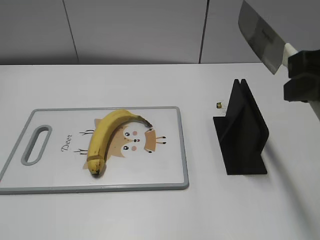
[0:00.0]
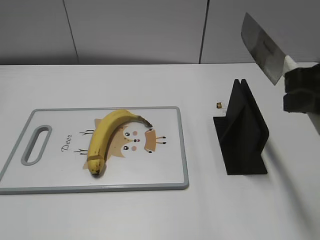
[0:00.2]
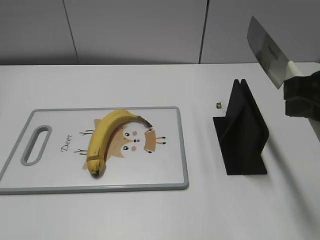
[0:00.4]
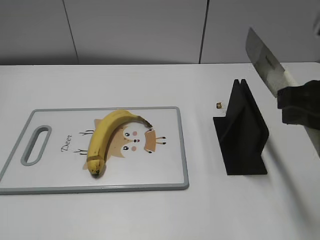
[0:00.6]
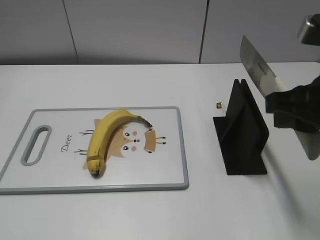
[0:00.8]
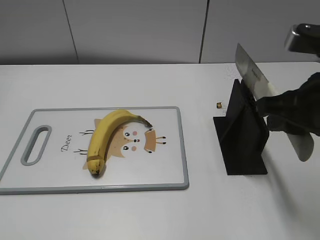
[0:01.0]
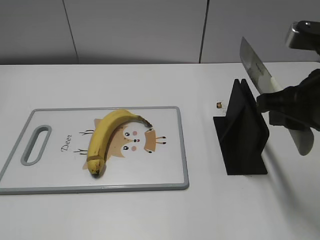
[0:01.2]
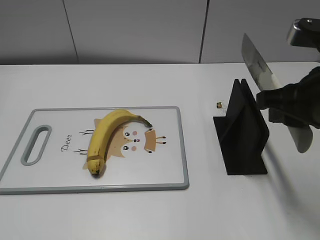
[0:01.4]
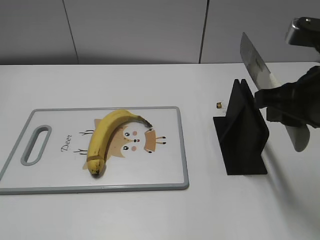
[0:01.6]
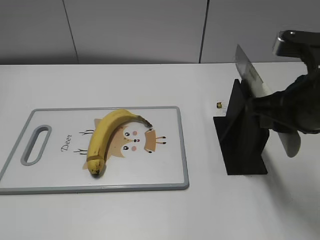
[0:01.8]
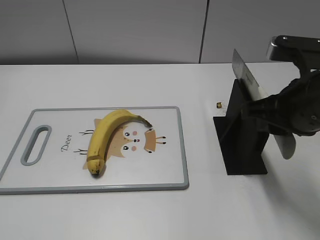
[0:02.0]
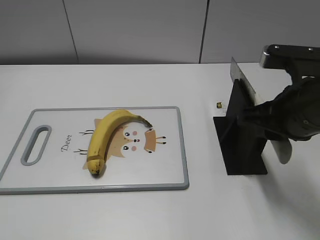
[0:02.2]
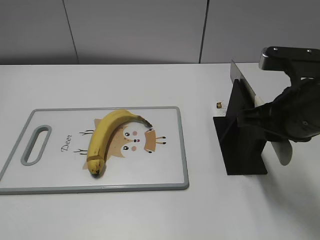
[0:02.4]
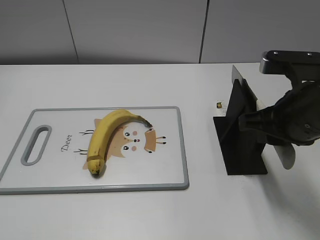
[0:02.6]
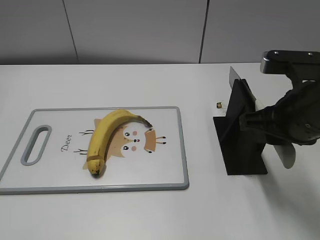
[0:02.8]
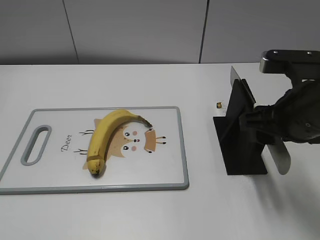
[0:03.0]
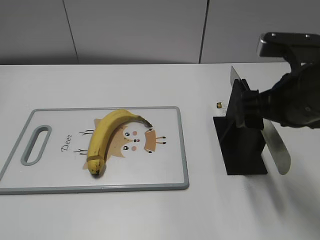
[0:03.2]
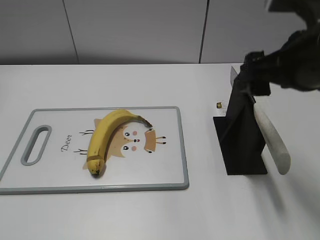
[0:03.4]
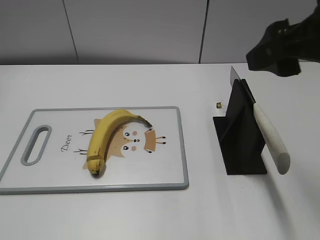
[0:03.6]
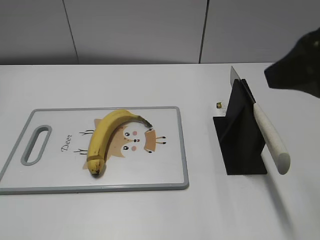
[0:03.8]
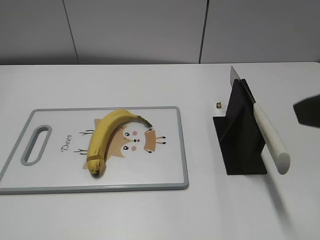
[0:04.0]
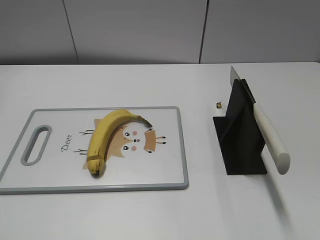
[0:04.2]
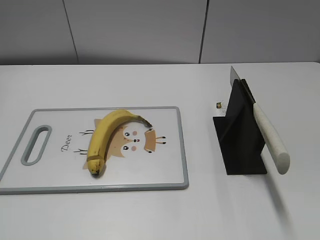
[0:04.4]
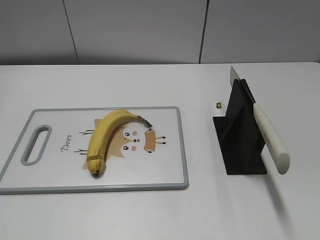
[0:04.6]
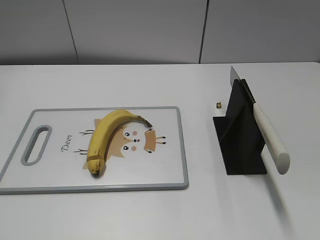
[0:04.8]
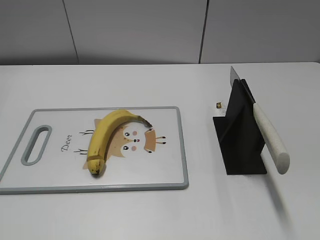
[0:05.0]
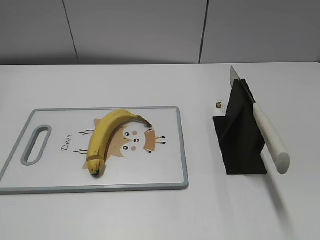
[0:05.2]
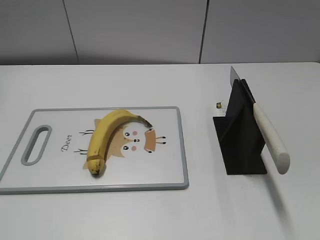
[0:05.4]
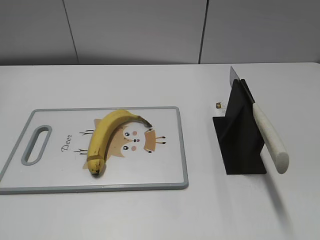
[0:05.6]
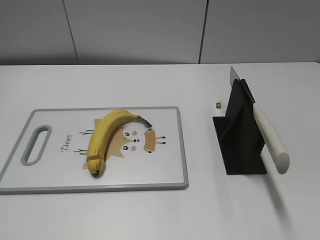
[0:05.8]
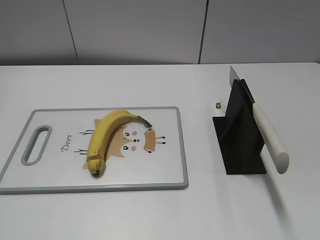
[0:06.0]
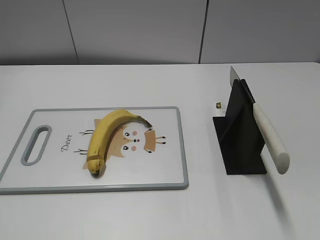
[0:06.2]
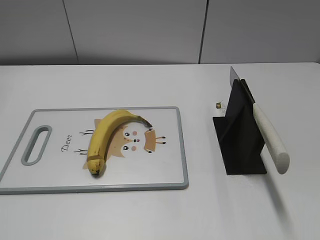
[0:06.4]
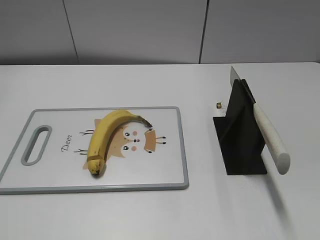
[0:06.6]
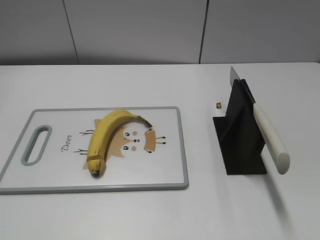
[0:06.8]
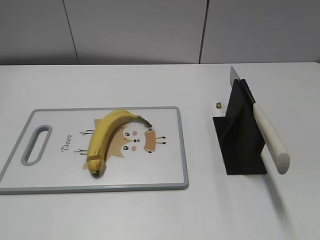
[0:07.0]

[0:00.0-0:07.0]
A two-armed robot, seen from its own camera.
Task of the whole recording: cut banana.
Step, 0:00.0 to 0:02.6: Lift the knife with your right hand.
Step, 0:02.8 to 0:07.0: Place the knife on the storage rack with your right hand.
0:00.0 to 0:01.4: The right gripper travels downward by some 5 cm.
0:01.4 to 0:02.8: The grippers stay close to where they were, moving slightly.
0:02.8 to 0:04.2: The right gripper moves backward, upward and to the right, roughly 15 cm, and opens its fingers.
